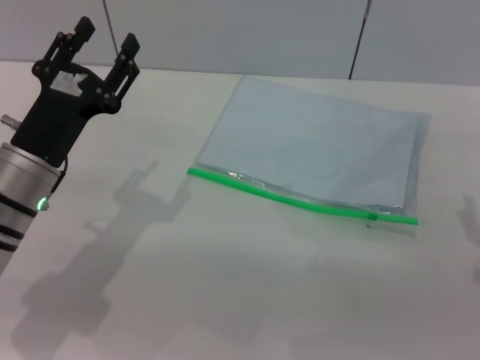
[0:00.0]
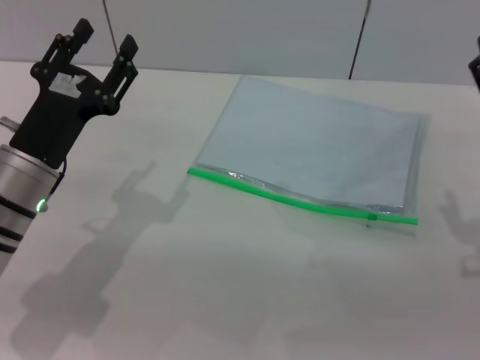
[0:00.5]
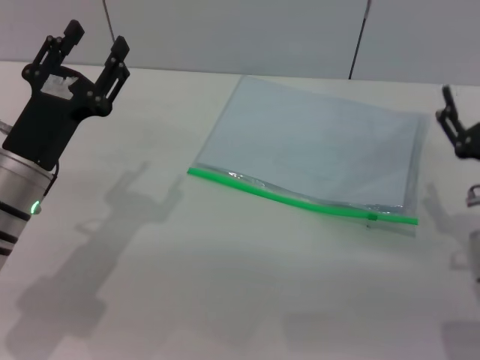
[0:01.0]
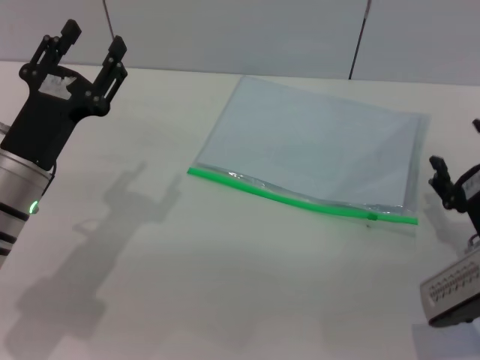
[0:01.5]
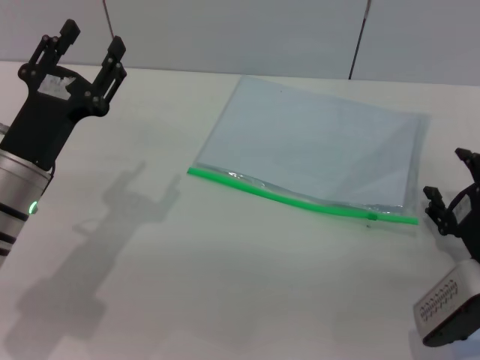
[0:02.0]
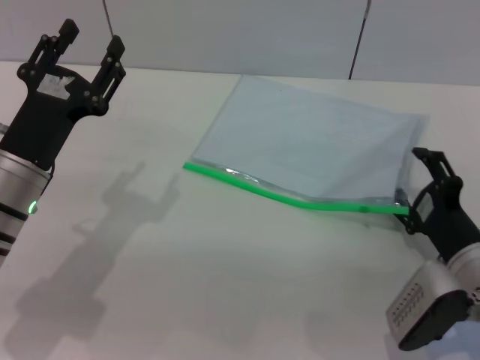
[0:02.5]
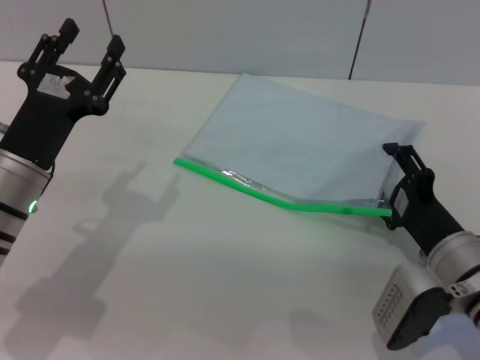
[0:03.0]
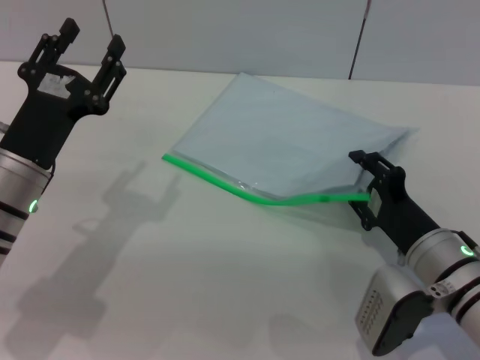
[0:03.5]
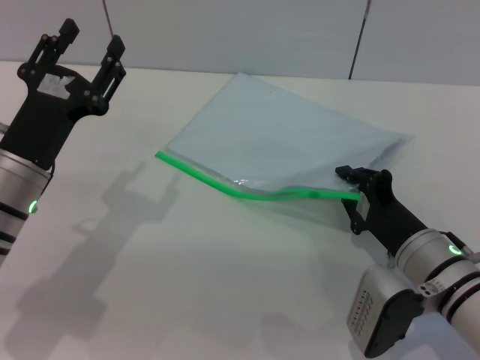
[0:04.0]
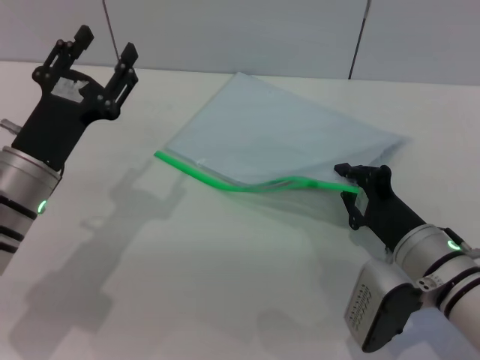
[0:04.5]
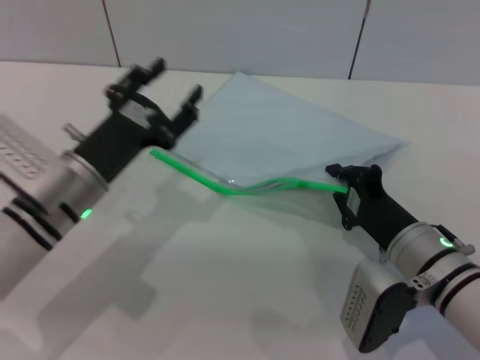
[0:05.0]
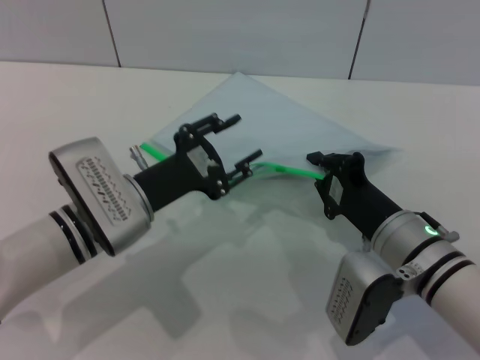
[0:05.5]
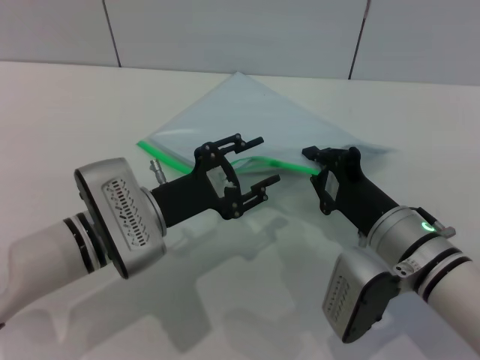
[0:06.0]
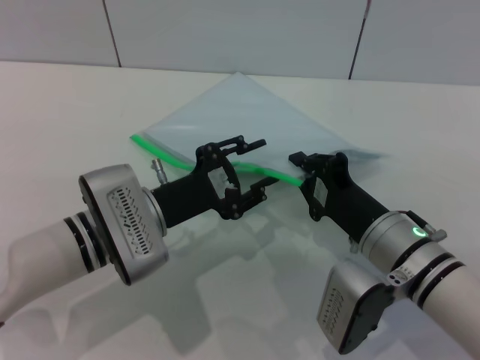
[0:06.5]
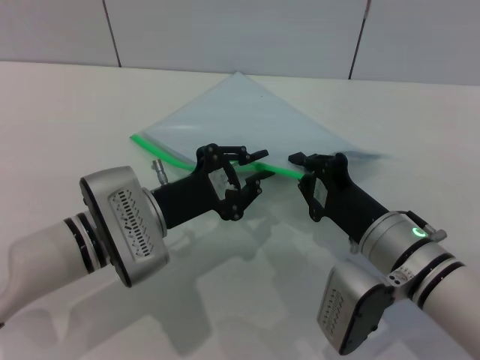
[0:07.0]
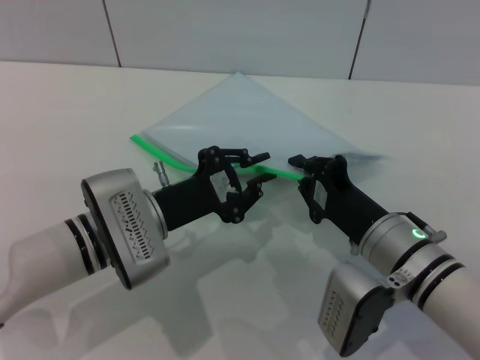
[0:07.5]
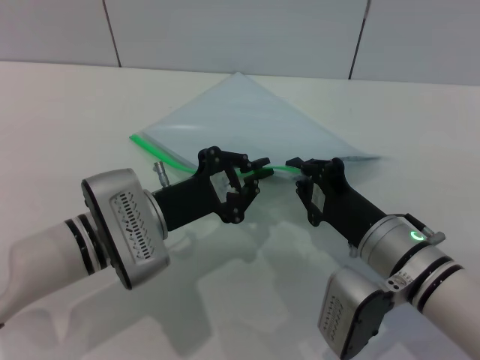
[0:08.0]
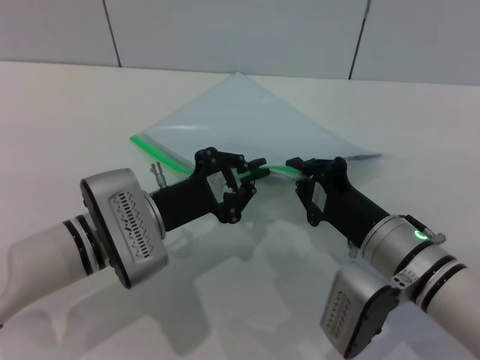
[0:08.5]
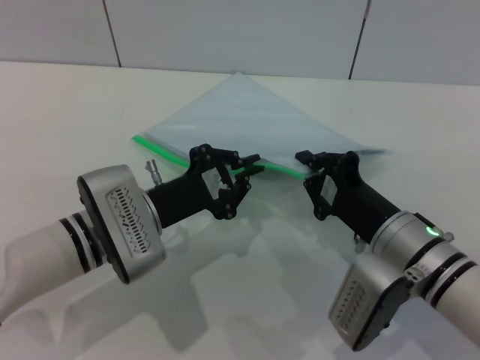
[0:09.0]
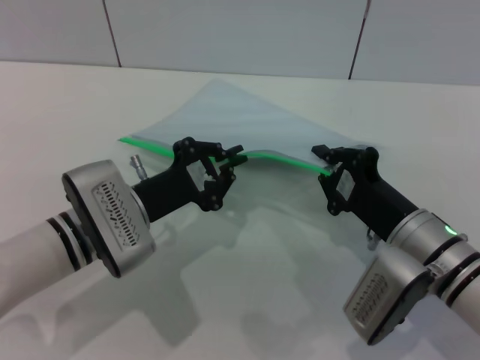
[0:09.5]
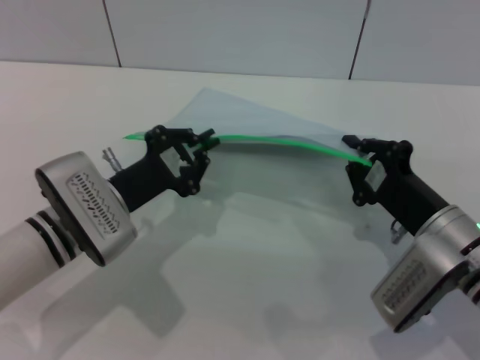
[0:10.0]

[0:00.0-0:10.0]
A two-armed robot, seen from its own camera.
Step, 0:00.0 to 0:05.0: Pick up the transparent plastic bag with the right gripper.
0:00.0 to 0:02.0: The right gripper moves downward, about 10 cm.
0:02.0 to 0:04.0: The right gripper travels to the left by some 5 cm, and closes its fingers.
0:04.0 to 0:06.0: The left gripper shifts approximately 10 cm to the right.
0:06.0 to 0:08.0: The left gripper closes.
0:08.0 to 0:10.0: The right gripper shifts approximately 5 cm to the right.

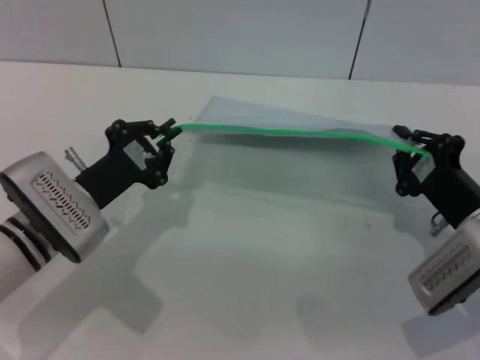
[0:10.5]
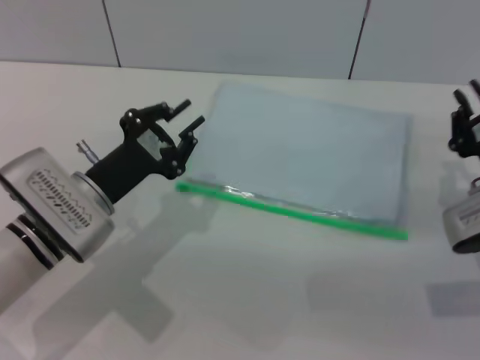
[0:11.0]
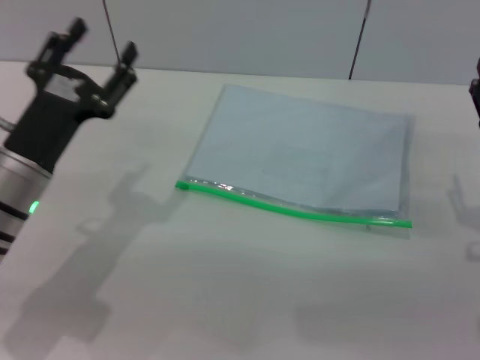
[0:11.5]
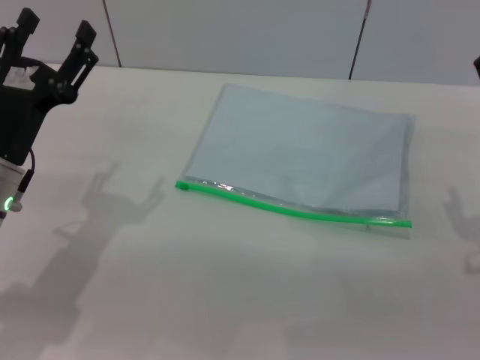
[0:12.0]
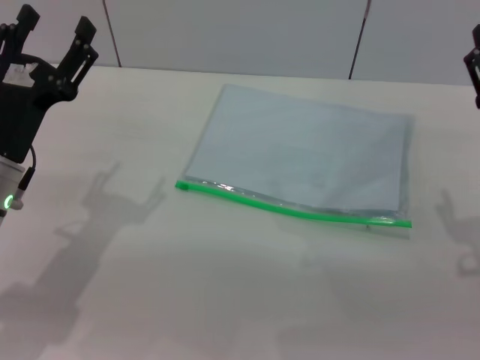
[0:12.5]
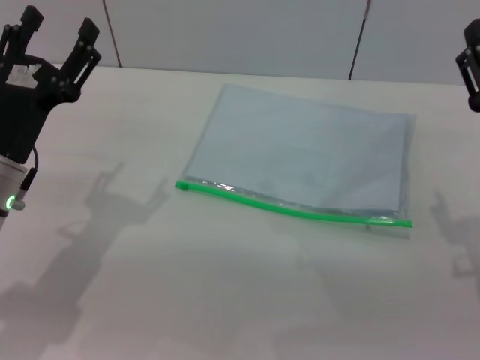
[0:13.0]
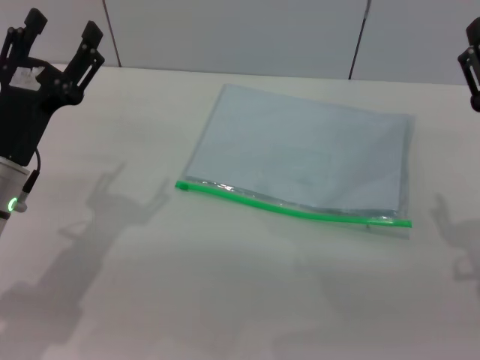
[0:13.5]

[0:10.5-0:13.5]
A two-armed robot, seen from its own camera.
0:10.5 to 0:12.0: The left gripper ends up roughly 5 cm from where it was, and opens its fingers, while the right gripper moves upward, approximately 5 cm, and opens.
0:12.0 to 0:13.5: The grippers move only a little.

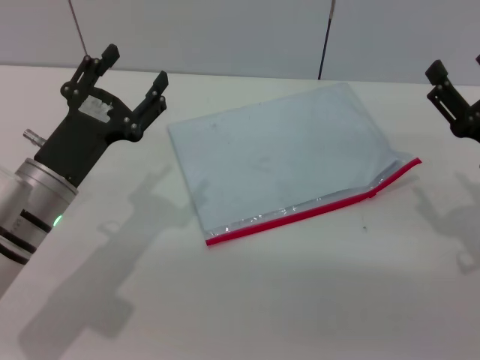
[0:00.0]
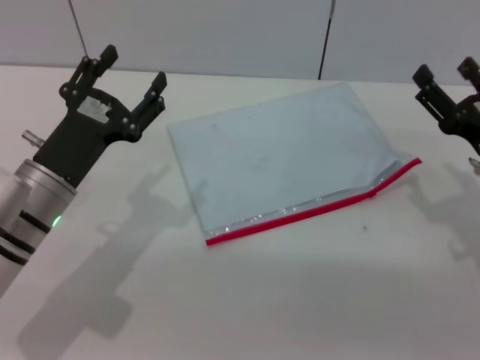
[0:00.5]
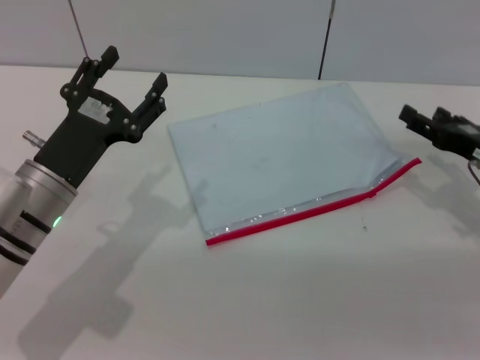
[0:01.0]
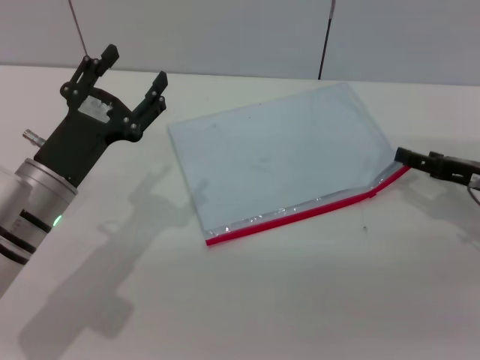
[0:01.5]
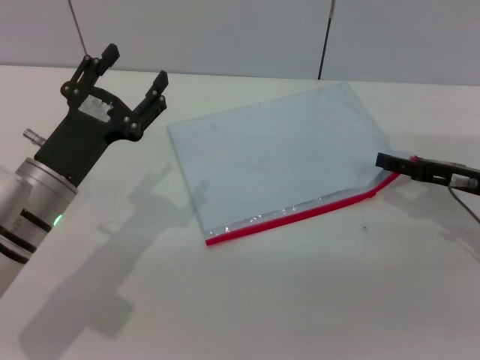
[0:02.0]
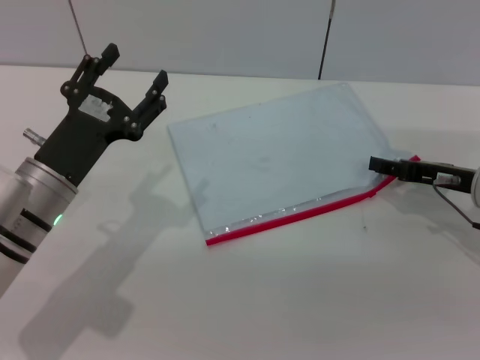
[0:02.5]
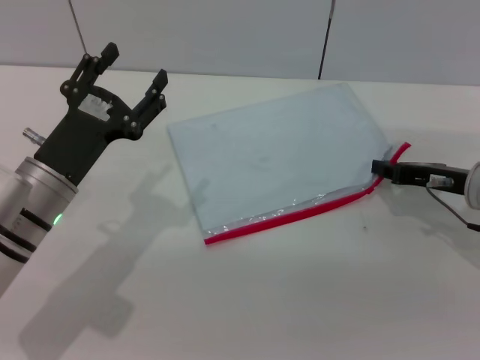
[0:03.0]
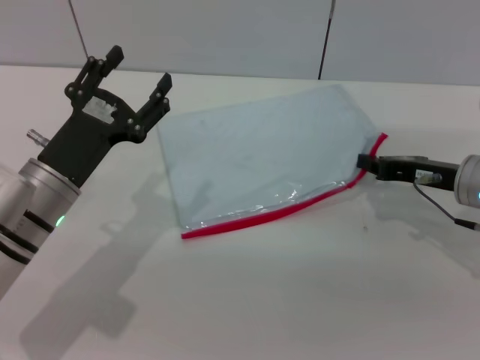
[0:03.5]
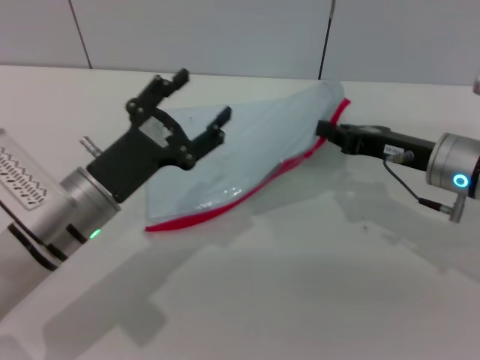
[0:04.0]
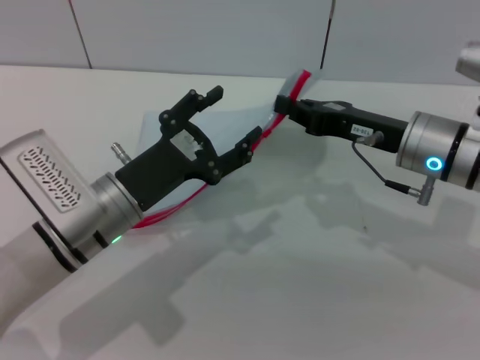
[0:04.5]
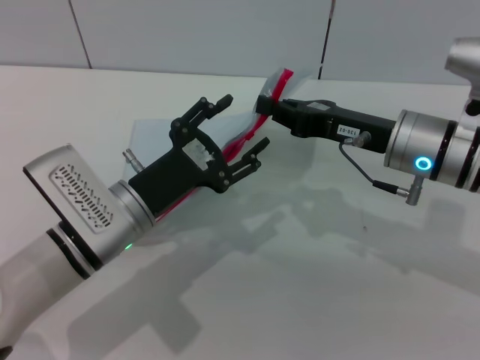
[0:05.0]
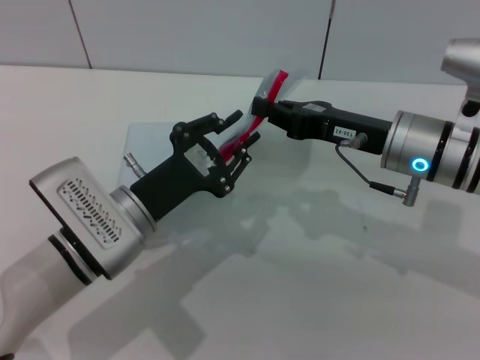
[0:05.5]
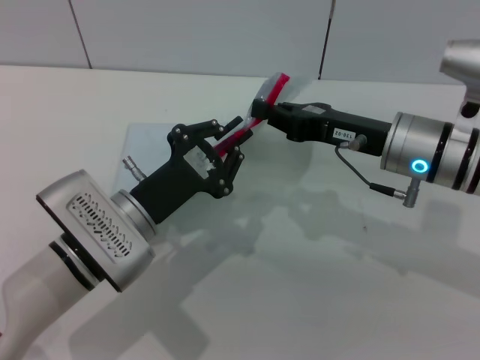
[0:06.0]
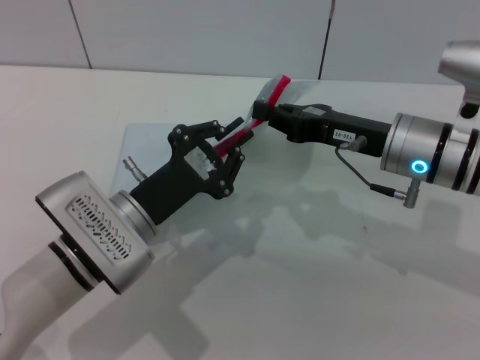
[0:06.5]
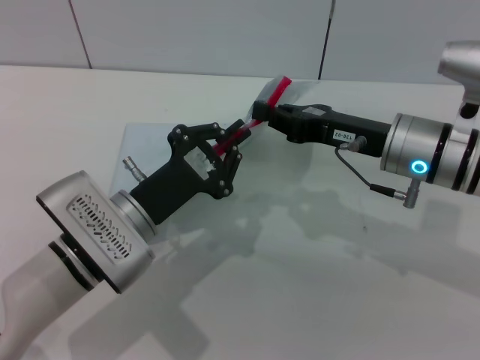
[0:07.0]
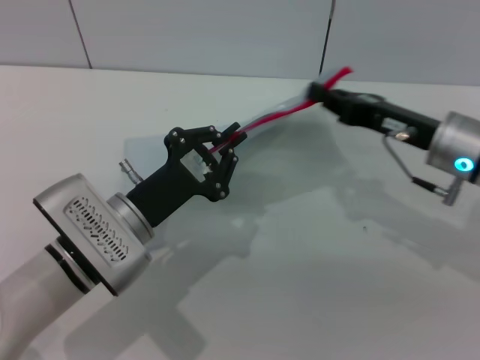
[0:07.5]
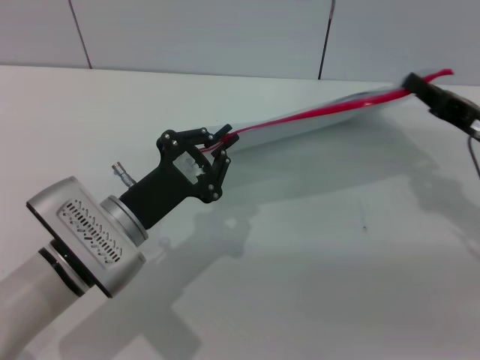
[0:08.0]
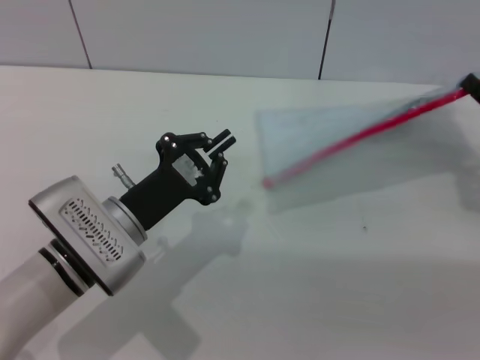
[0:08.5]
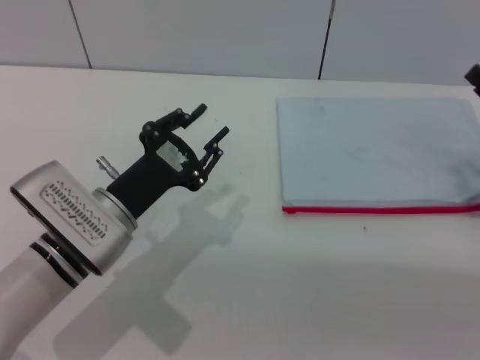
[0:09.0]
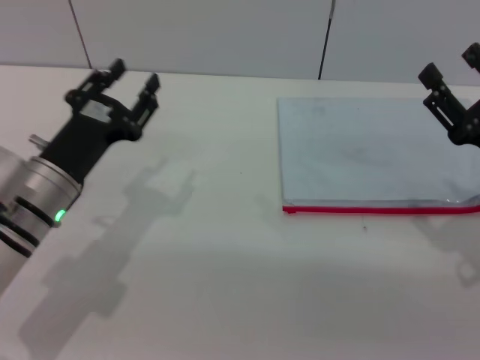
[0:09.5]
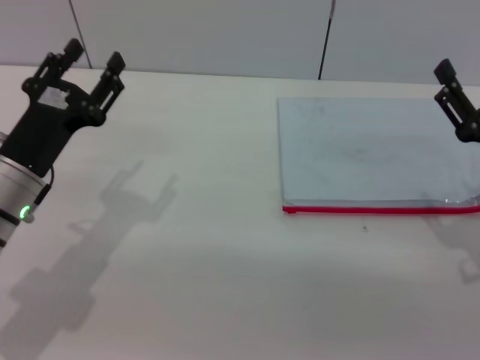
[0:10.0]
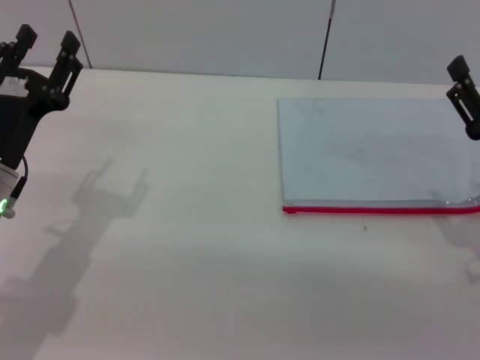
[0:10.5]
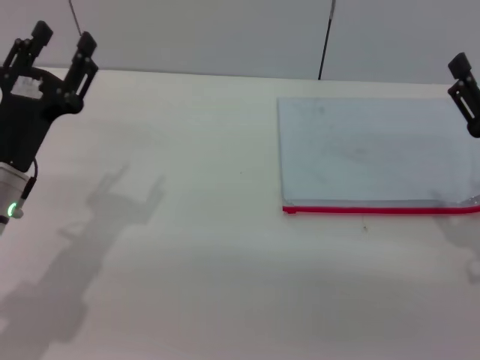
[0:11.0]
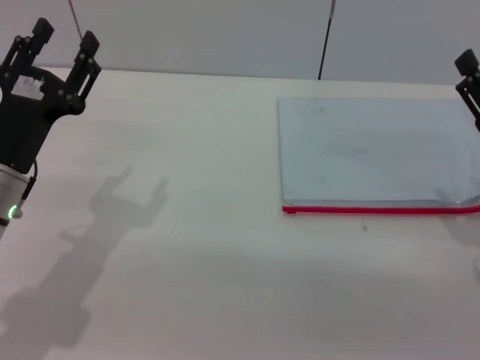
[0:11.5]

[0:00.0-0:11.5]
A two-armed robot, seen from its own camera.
Step, 0:00.0 to 0:04.0: Pick up the transparent plastic bag with the right gripper.
Step, 0:04.5 to 0:08.5: Pulling up the zipper on the transparent plastic bag with the left gripper to close it.
Step, 0:09.0 to 0:09.5: Place the transparent plastic bag.
0:00.0 to 0:02.0: The right gripper travels forward by about 5 cm.
0:02.0 to 0:04.0: The right gripper shifts about 5 cm to the left, and closes.
0:04.0 to 0:06.0: The right gripper goes some 5 cm to the left, while the left gripper closes its fingers.
0:06.0 to 0:07.5: The grippers move only a little.
0:07.5 to 0:09.5: The right gripper shifts about 10 cm backward and to the right, and opens its fingers. Meanwhile the left gripper goes about 5 cm to the left, and opens.
0:09.5 to 0:11.5: There are only small adjustments of the grippers.
